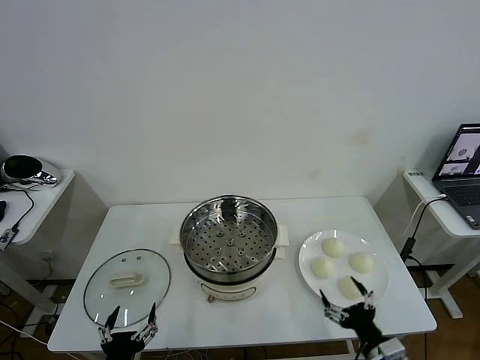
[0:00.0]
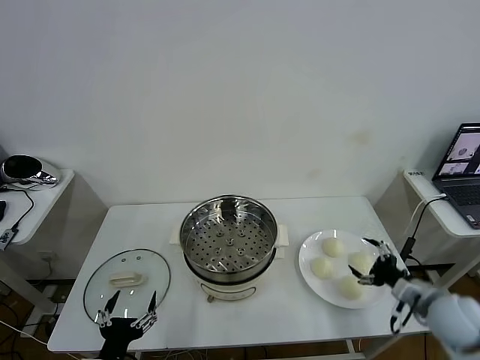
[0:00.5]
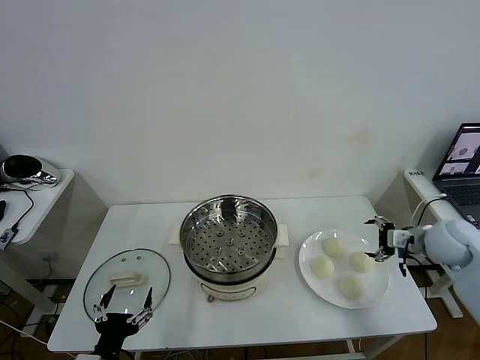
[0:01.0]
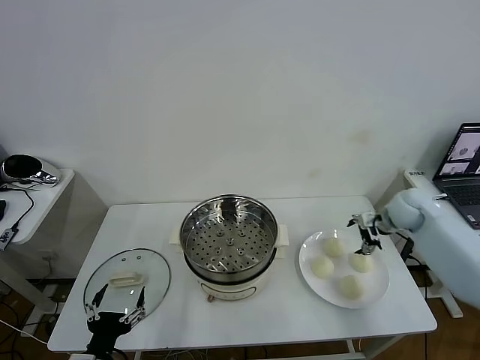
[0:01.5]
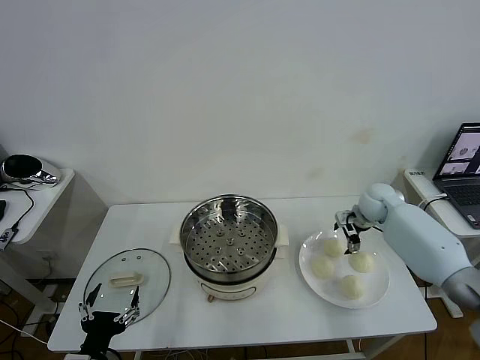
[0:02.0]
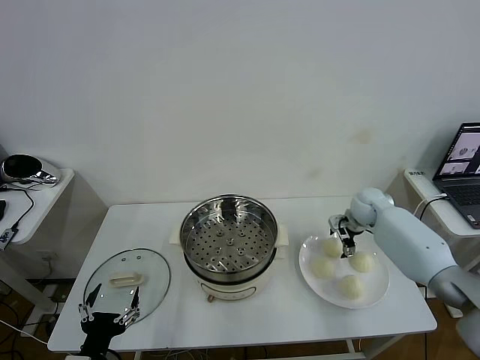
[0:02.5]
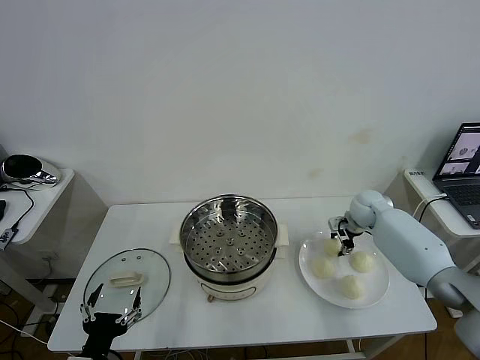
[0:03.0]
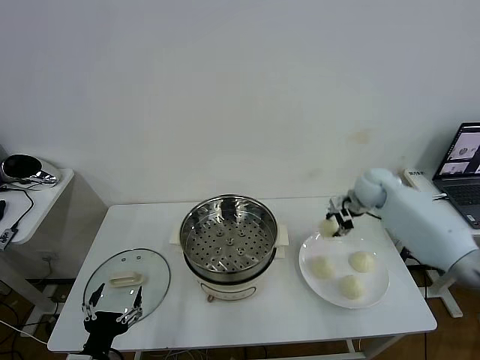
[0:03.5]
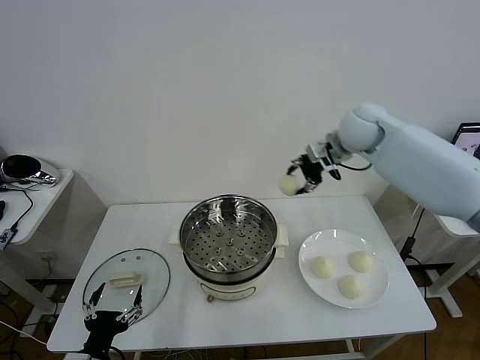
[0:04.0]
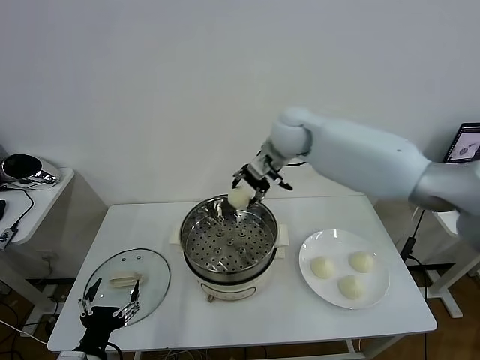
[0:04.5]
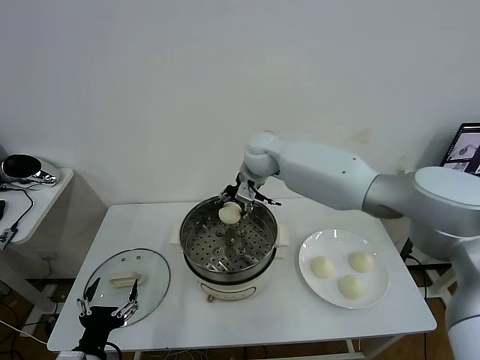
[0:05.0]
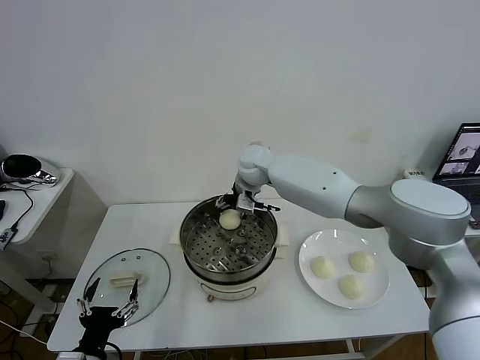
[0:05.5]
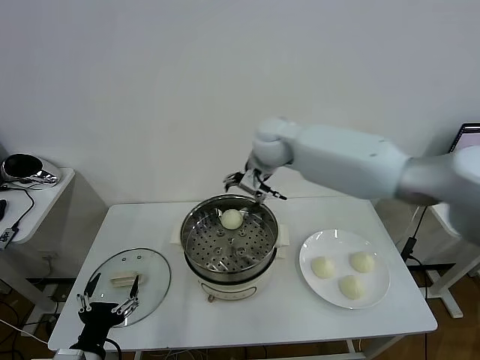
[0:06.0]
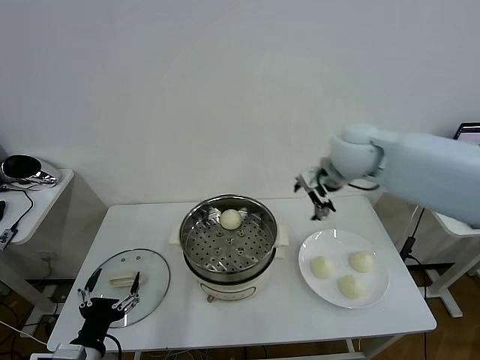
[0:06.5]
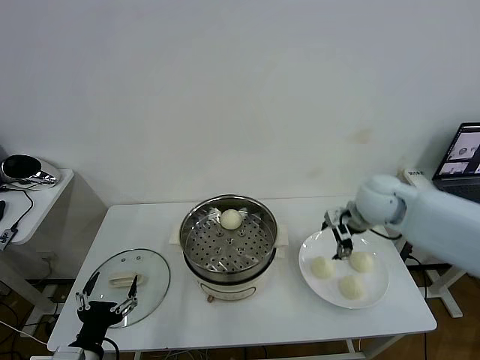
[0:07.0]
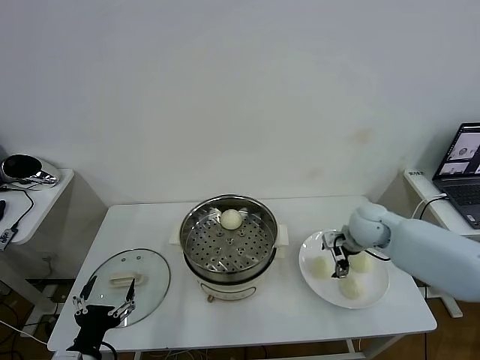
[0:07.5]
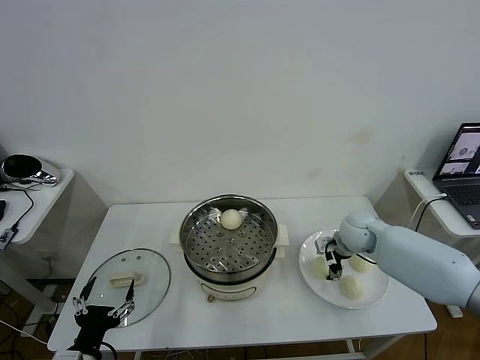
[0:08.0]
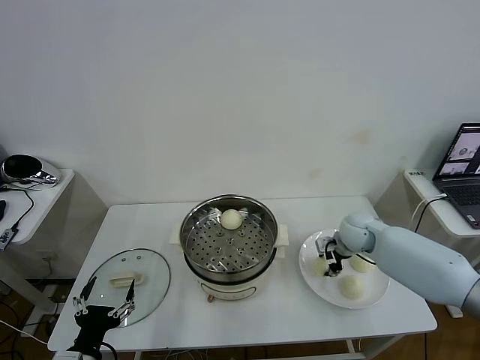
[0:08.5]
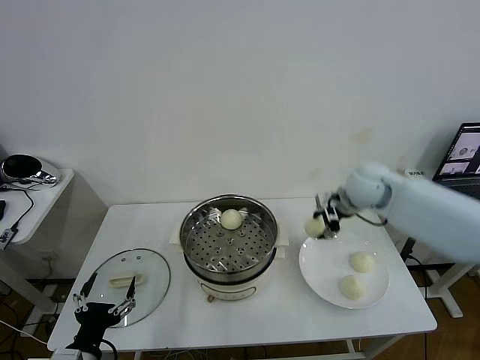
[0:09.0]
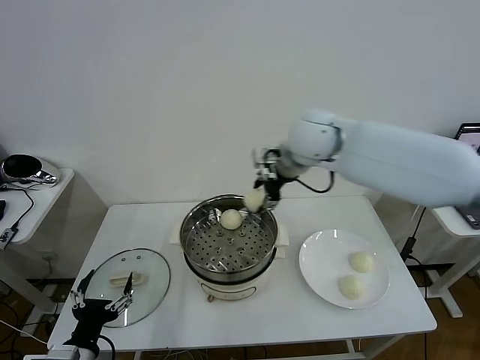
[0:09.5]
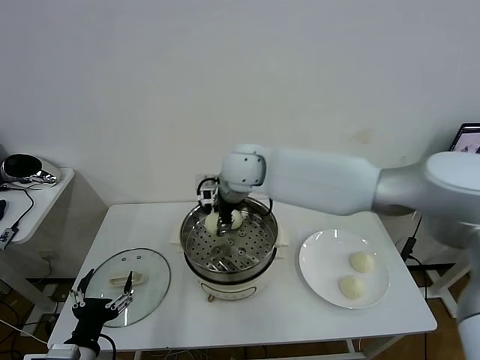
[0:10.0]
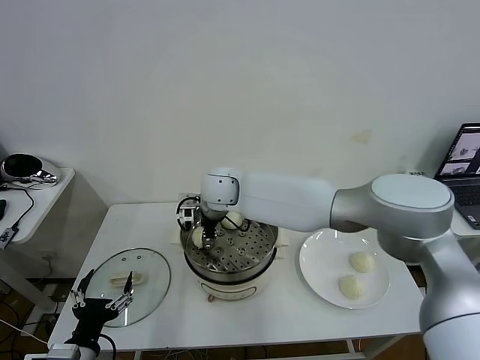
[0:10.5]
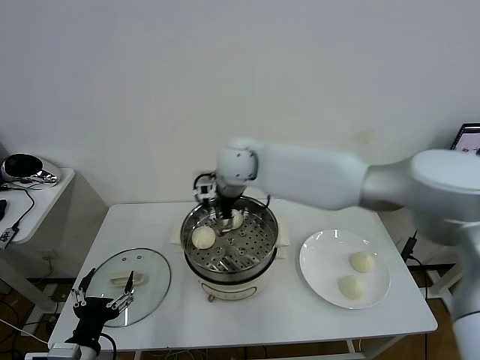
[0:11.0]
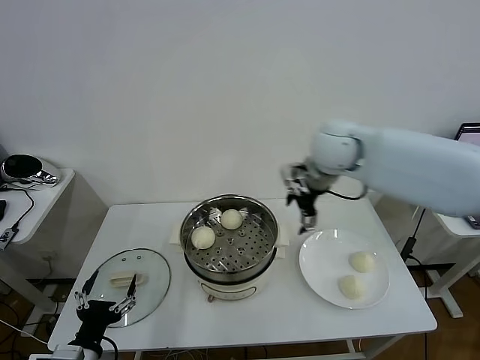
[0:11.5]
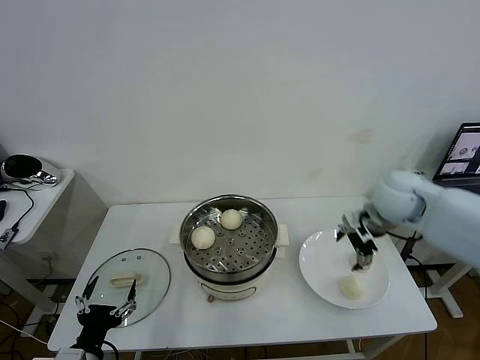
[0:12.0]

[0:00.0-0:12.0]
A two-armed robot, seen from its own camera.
Task of the whole recording: take steamed baozi put them in steamer then cover it.
Step, 0:00.0 to 0:02.5: Grasp the baozi in the plate with right gripper.
Step, 0:03.0 to 0:05.5: Place the baozi on the steamer with right gripper.
Step, 0:06.0 to 0:08.0: Grasp the baozi in the plate with right gripper.
Step, 0:08.5 to 0:10.5: Place the baozi on the steamer with right gripper.
0:02.0 to 0:04.0: The right gripper is displaced upward and to the left by about 30 cm, and closes its fingers.
0:04.0 to 0:06.0: The right gripper is displaced to the left by some 10 cm, and opens its fingers.
0:06.0 to 0:08.0: The right gripper goes approximately 30 cm downward and to the right.
0:08.0 to 0:10.0: The right gripper heads to the left and upward, covering about 35 cm, and closes.
0:10.0 to 0:12.0: The right gripper is displaced to the right by about 35 cm, and opens.

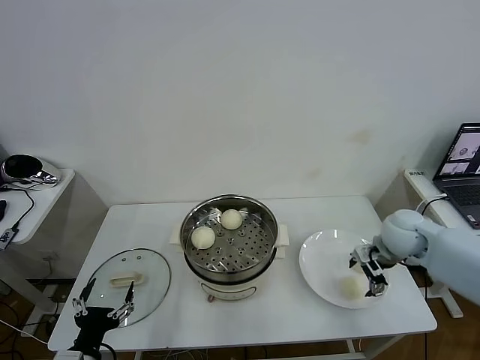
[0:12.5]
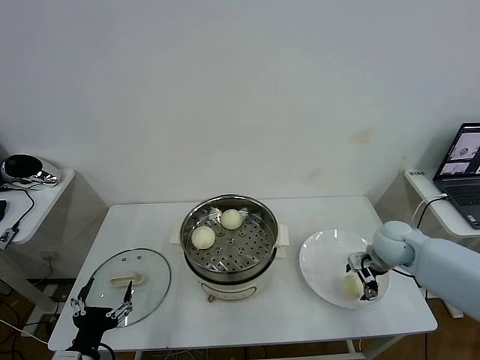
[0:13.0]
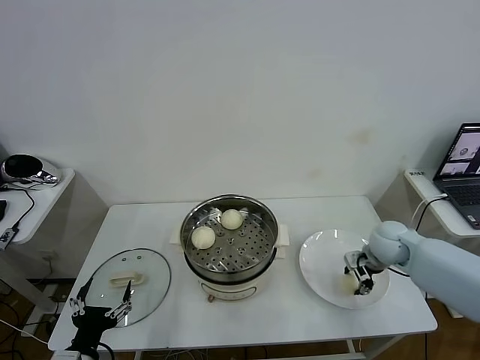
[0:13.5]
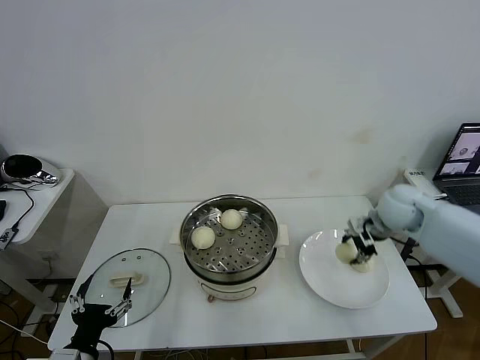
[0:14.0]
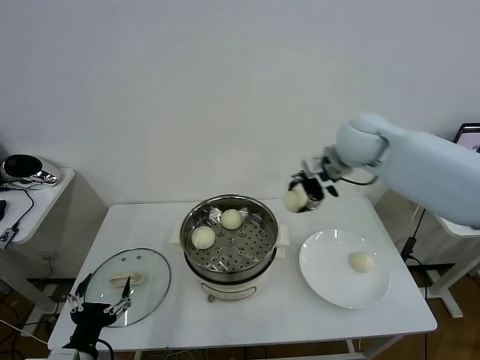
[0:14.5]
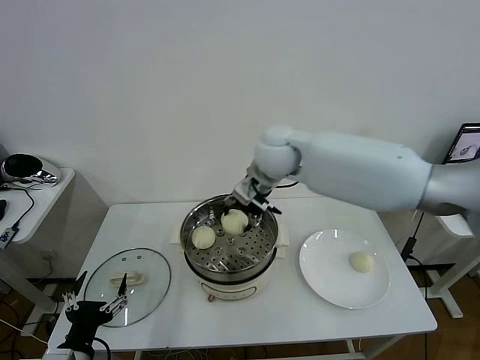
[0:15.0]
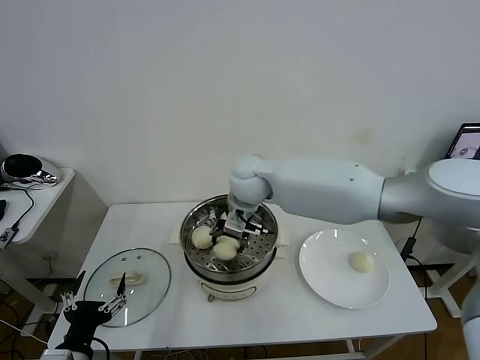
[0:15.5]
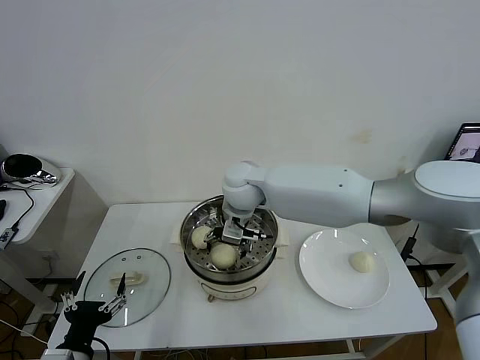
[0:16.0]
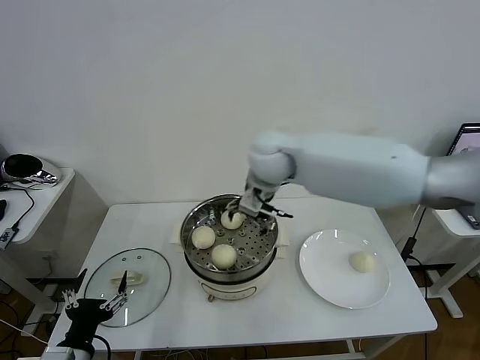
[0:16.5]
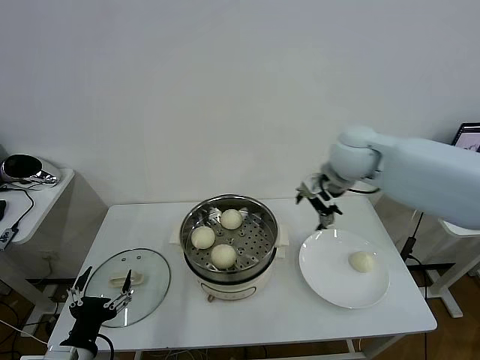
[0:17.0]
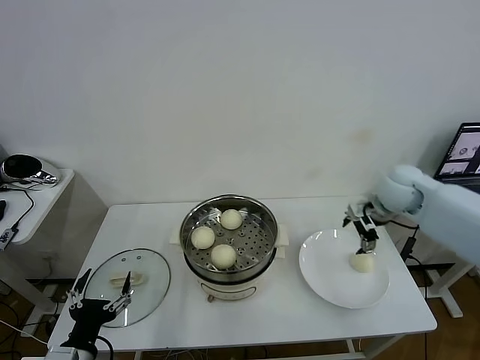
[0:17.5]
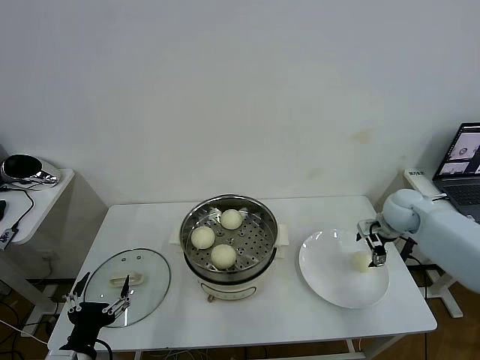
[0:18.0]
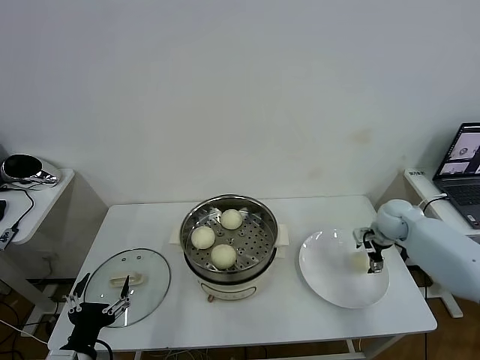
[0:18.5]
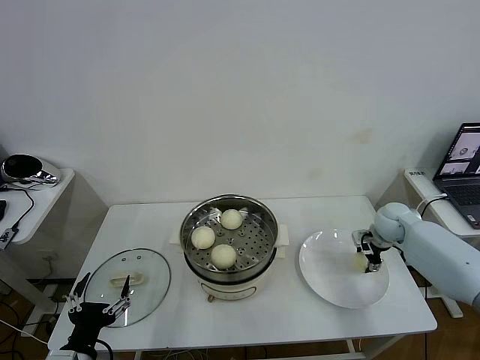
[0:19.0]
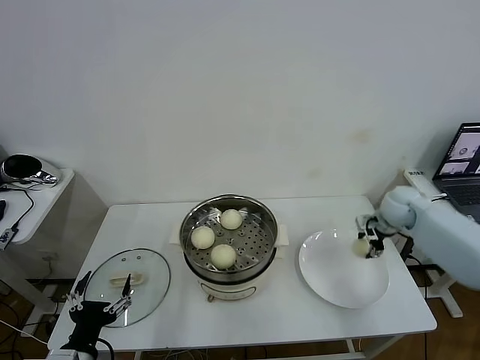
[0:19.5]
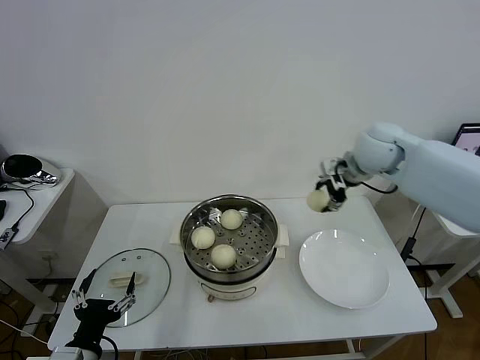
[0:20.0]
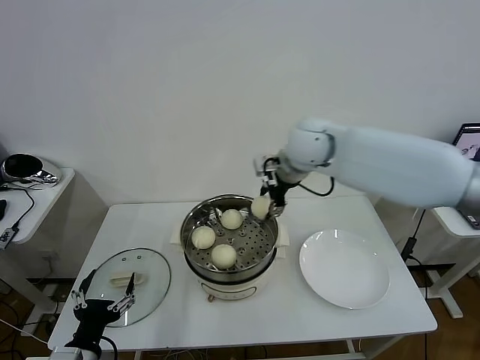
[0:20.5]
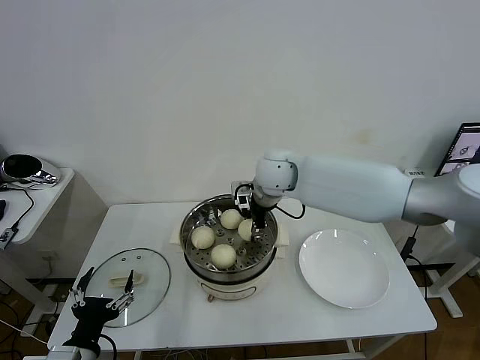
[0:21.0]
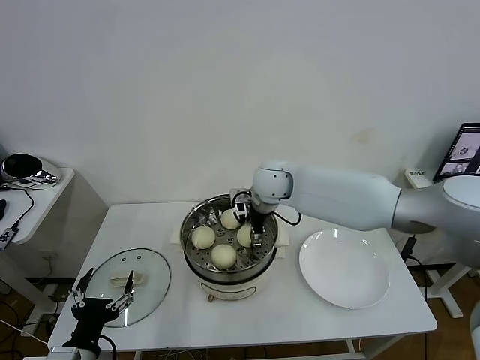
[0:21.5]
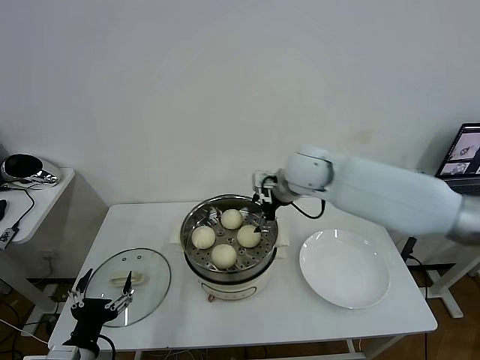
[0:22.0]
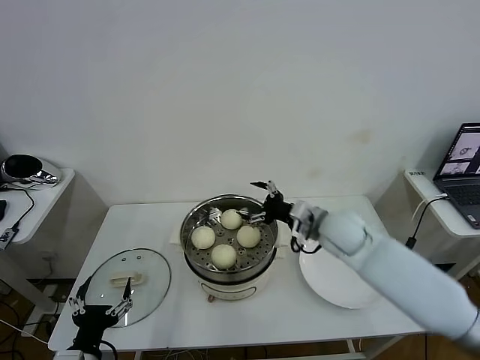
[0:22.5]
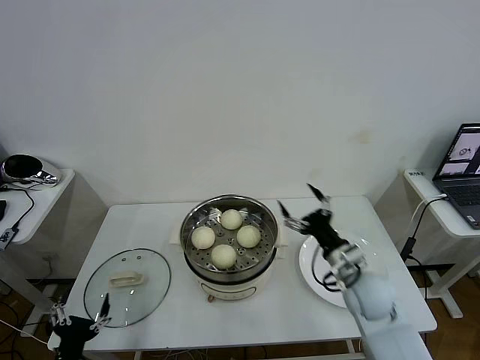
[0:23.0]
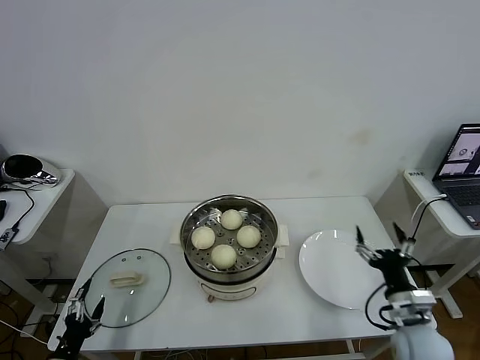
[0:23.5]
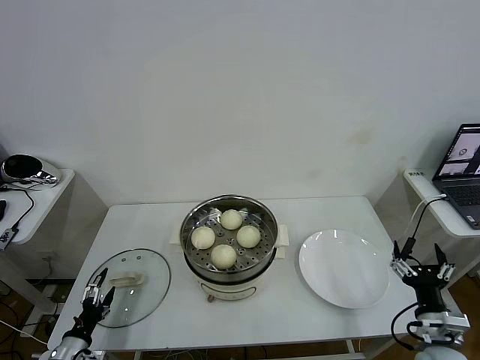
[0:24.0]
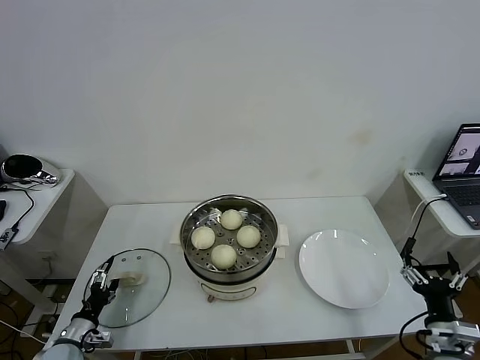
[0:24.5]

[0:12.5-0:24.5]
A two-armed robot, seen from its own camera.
Task of the whole recording: take steamed baozi put them in steamer then cover it.
Step, 0:14.0 to 0:16.0: Place the baozi on the steamer with right gripper.
Step, 0:16.5 to 0:19.0: Grasp the baozi in the plate with right gripper.
Step, 0:19.5 to 0:21.5: Place the baozi on the steamer with right gripper.
0:12.5 to 0:14.5: The right gripper shifts roughly 25 cm upward, to the left and forward, and closes its fingers.
0:14.5 to 0:16.5: The right gripper goes roughly 15 cm to the left, and opens.
0:16.5 to 0:18.5: The right gripper travels to the right and downward by about 40 cm.
0:18.5 to 0:20.5: The right gripper goes about 35 cm to the left and upward, and closes.
0:20.5 to 0:22.5: The right gripper moves up and down over about 15 cm, changing direction 2 times, and opens up.
0:22.5 to 0:24.5: The left gripper heads downward, to the left and forward, covering approximately 20 cm; the right gripper travels backward, to the right and downward by roughly 35 cm.

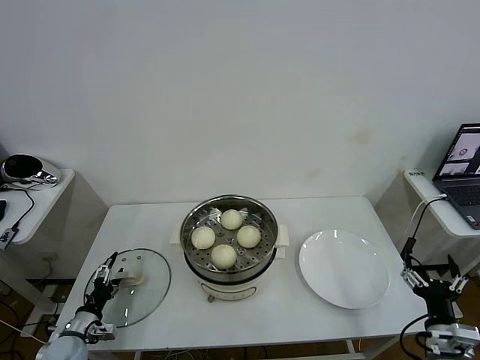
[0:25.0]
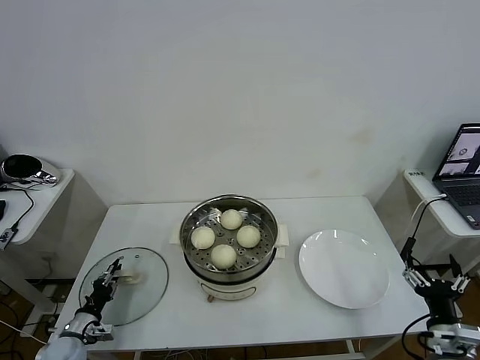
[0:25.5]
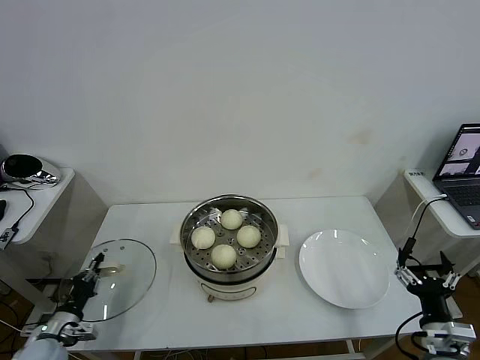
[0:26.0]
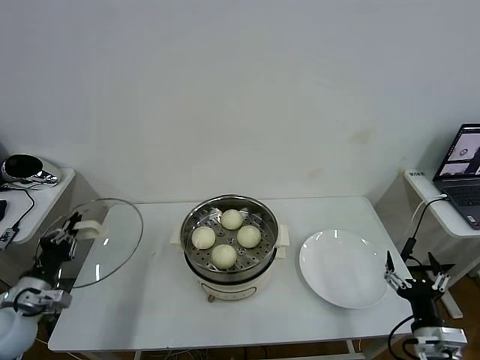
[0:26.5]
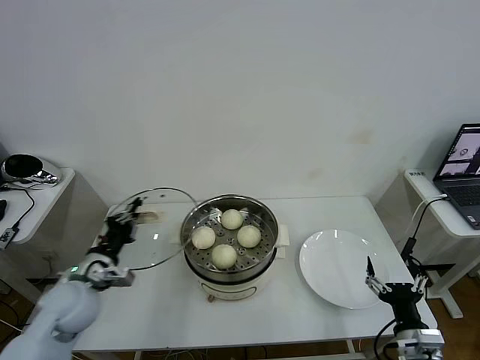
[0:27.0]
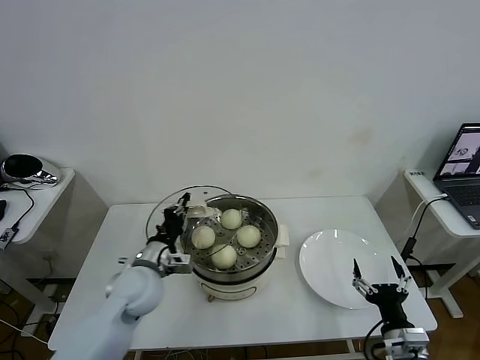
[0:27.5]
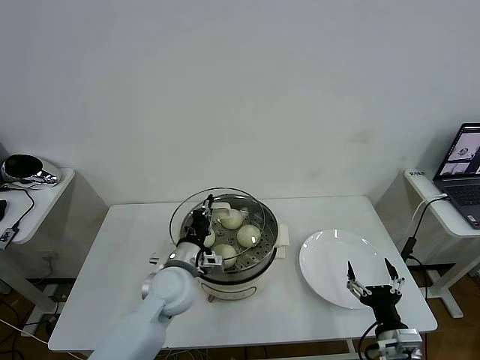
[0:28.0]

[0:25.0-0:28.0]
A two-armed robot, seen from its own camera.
Task of the whole recording: take steamed baozi put them in steamer then cover it.
0:25.0 to 0:26.5: The left gripper goes approximately 15 cm upward, and closes up.
0:26.5 to 0:28.0: The right gripper changes place by about 5 cm. The left gripper goes about 30 cm to the right.
